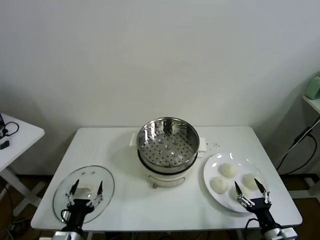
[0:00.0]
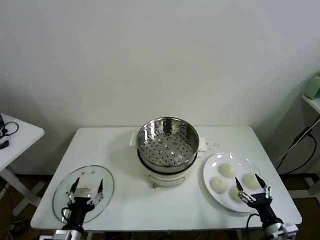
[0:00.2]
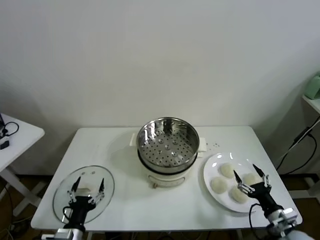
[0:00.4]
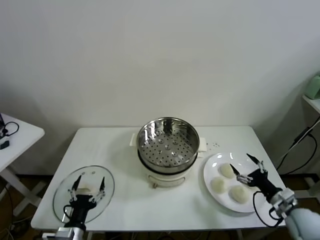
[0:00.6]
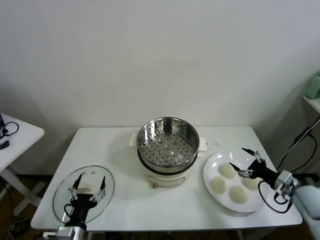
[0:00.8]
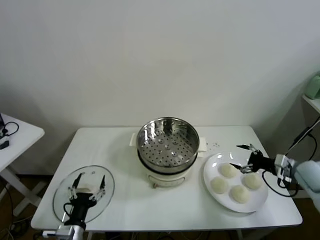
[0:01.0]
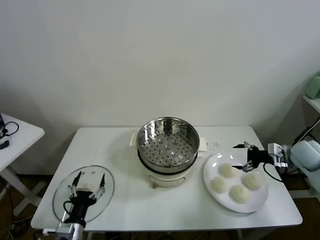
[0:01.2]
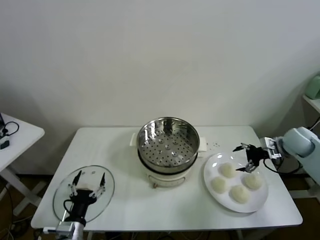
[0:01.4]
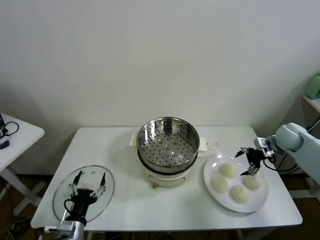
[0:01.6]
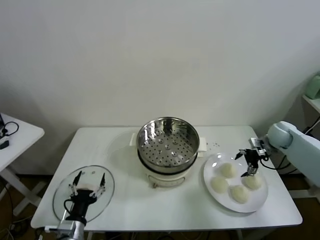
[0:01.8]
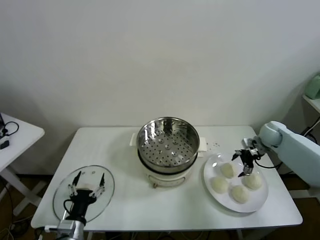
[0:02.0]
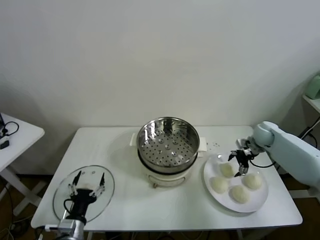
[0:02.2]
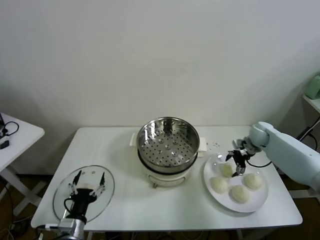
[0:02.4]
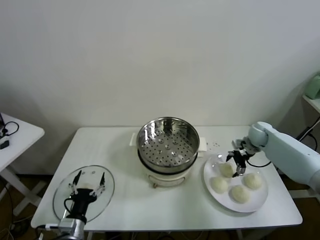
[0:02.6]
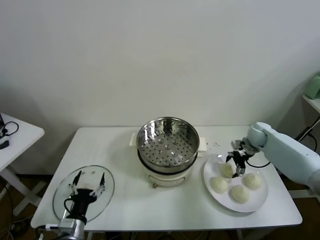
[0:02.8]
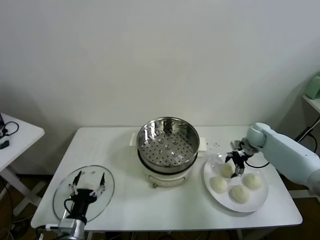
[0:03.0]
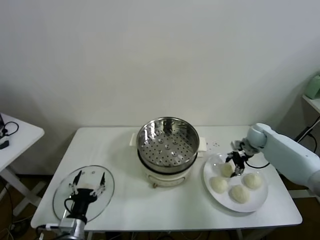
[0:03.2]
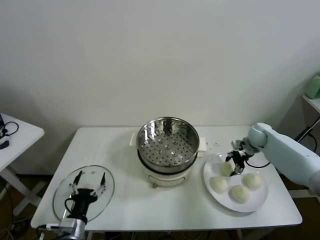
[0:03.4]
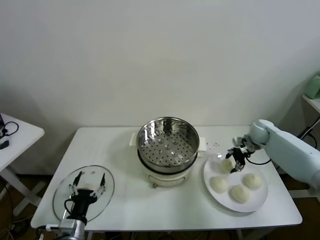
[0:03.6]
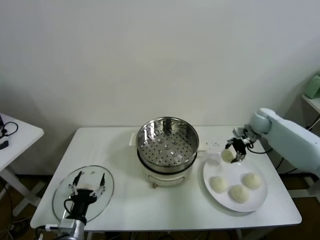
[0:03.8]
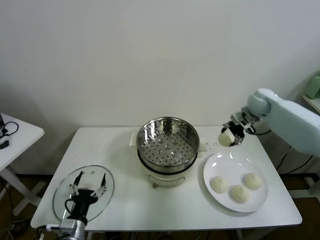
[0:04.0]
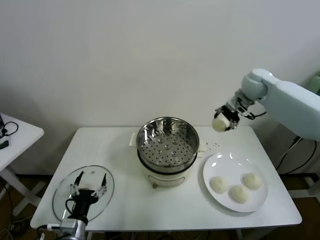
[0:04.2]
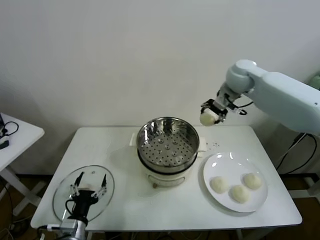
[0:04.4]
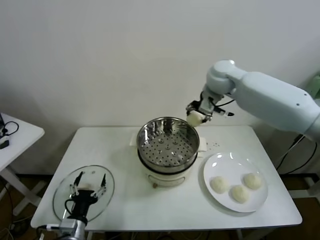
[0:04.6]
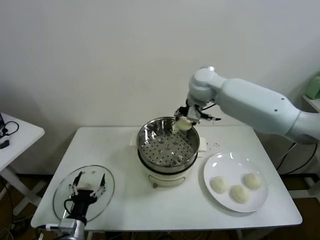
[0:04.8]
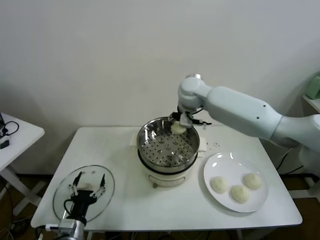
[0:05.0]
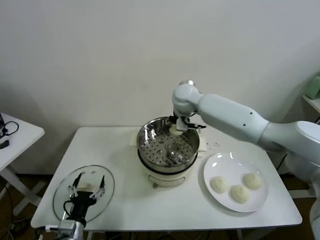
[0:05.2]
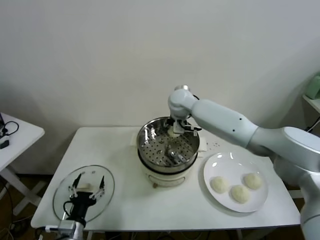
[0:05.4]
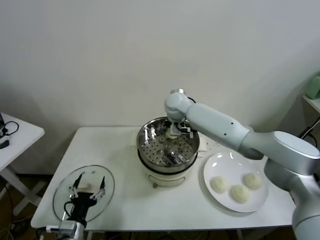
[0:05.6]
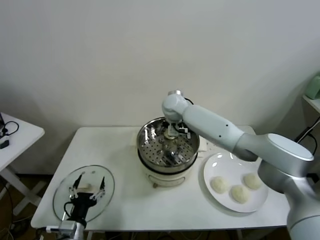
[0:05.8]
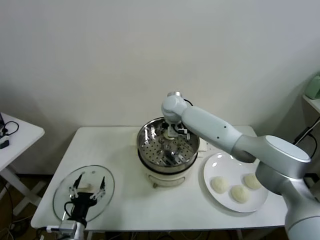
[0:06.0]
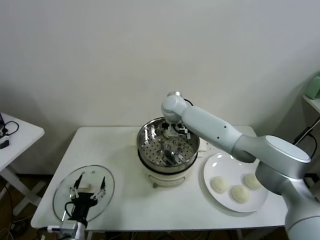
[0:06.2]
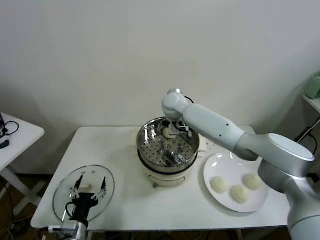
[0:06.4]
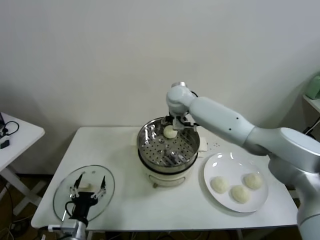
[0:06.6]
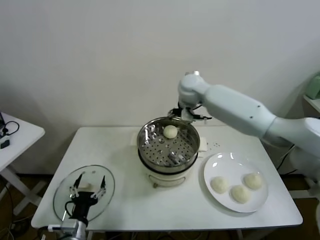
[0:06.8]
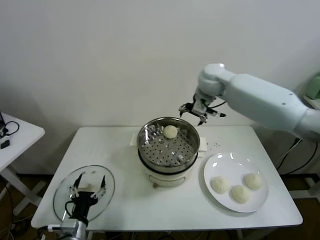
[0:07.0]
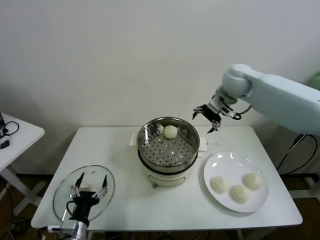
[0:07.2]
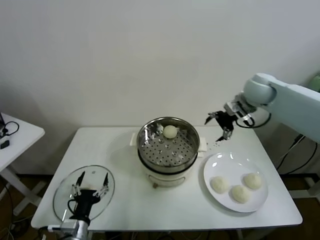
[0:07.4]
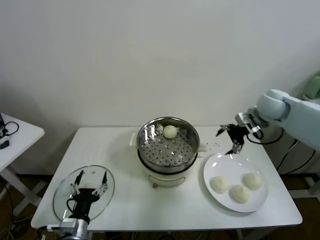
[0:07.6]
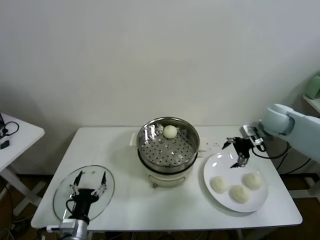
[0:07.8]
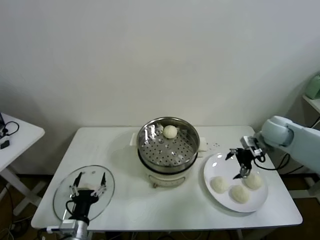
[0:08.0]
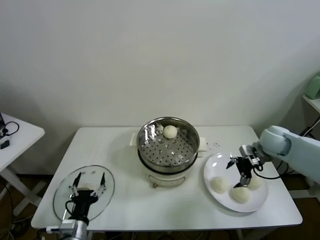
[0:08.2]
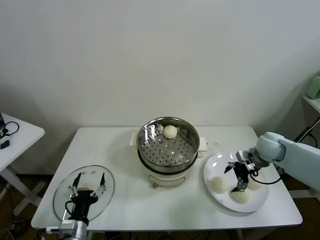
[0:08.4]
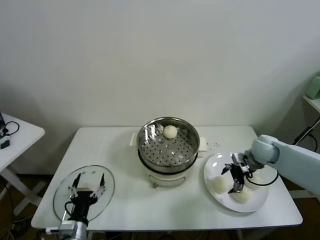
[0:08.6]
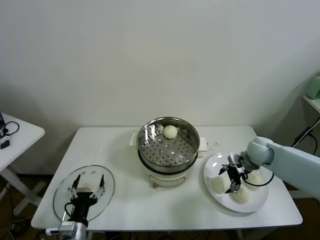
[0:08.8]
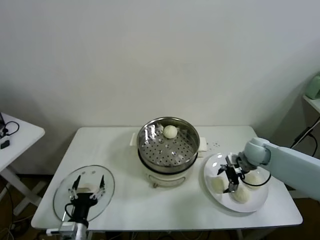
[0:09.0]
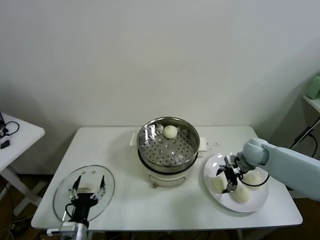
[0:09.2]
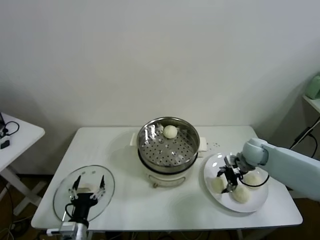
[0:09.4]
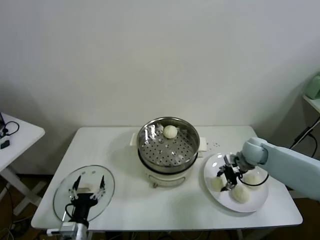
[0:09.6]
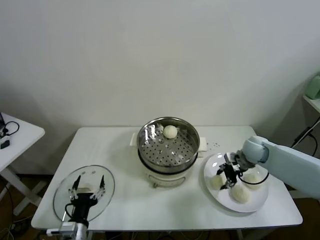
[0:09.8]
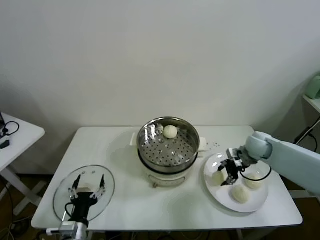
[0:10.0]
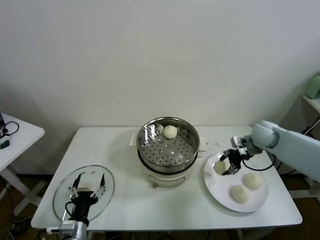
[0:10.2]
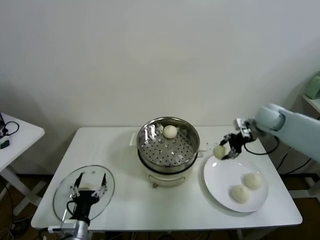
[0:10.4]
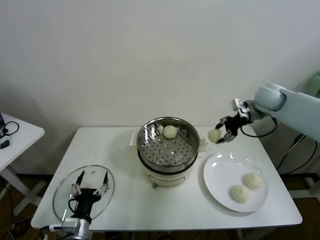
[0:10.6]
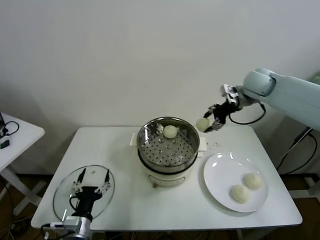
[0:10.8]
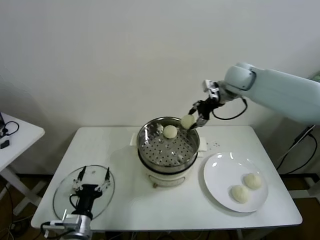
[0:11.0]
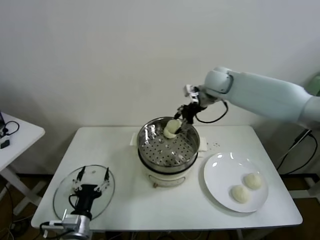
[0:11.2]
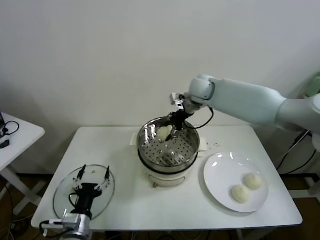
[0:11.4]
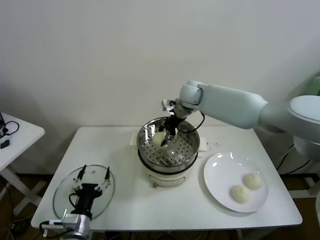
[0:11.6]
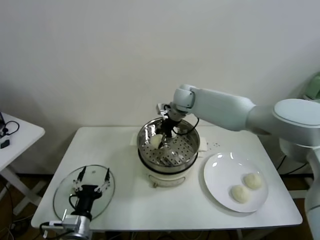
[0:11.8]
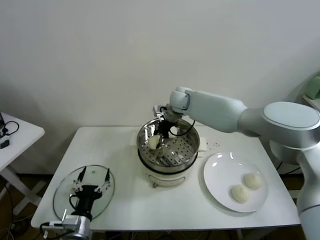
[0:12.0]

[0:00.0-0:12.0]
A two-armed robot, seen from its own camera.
Task of the whole recording: take steamed baozi put them in steamer.
Step, 0:00.0 to 0:03.2: Grasp the baozi in the plate with right gripper.
Step, 0:03.4 to 0:06.4: Place the baozi on the steamer with right gripper.
Step, 0:06.6 to 0:09.4: Grasp the baozi in the plate with right gripper.
0:01.6 to 0:03.0: The right gripper moves to the left, downward and forward, about 10 cm, and closes its fingers.
0:03.0 to 0:04.4: The right gripper moves upward and to the left, some 30 cm.
0:04.4 to 0:06.0: The right gripper goes roughly 25 cm to the left and downward, and opens its fingers.
0:06.0 to 0:07.6: The right gripper travels to the right by approximately 30 cm.
0:07.6 to 0:09.0: The right gripper travels downward by roughly 15 cm.
0:09.0 to 0:10.4: The right gripper travels upward by some 15 cm, and closes.
0:10.4 to 0:12.0: The right gripper heads to the left, covering some 30 cm.

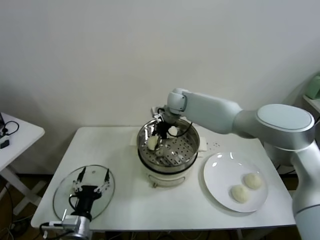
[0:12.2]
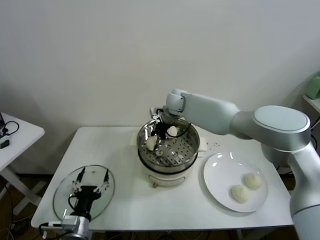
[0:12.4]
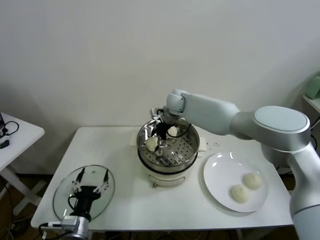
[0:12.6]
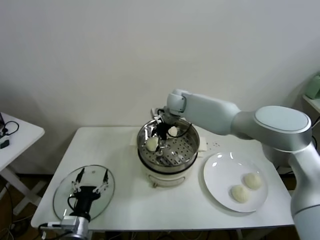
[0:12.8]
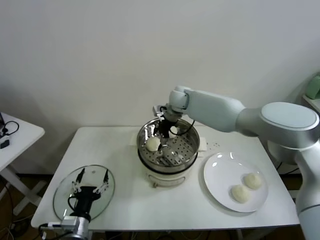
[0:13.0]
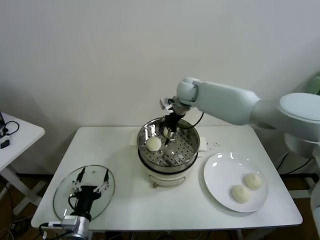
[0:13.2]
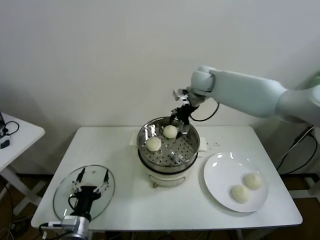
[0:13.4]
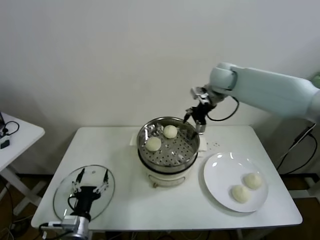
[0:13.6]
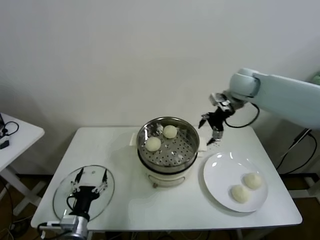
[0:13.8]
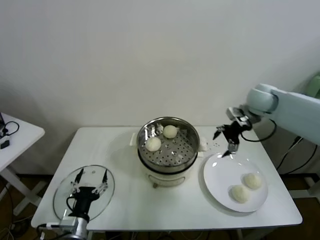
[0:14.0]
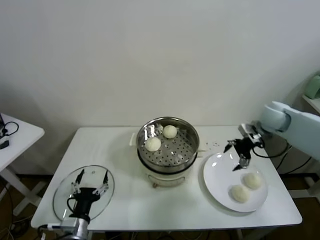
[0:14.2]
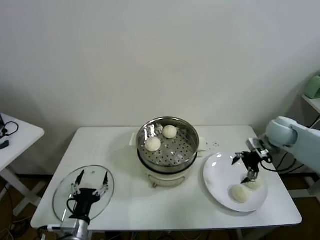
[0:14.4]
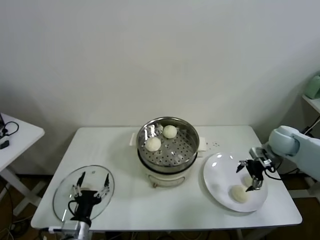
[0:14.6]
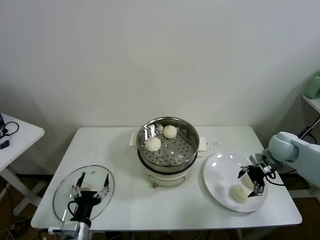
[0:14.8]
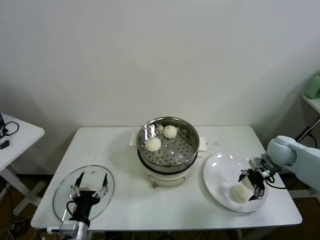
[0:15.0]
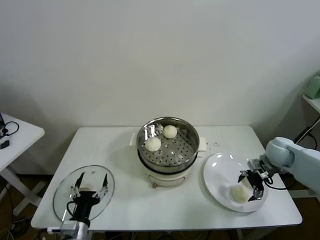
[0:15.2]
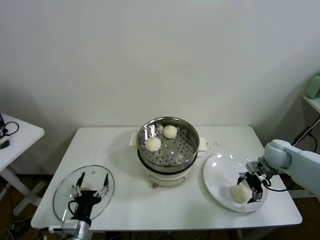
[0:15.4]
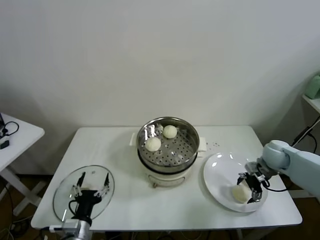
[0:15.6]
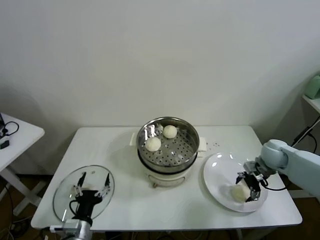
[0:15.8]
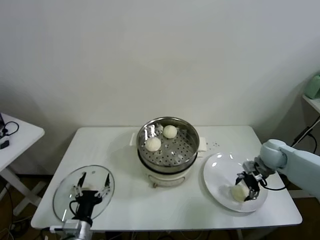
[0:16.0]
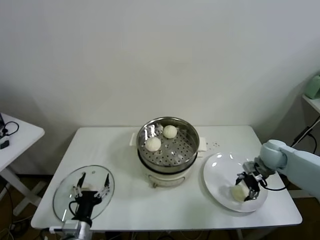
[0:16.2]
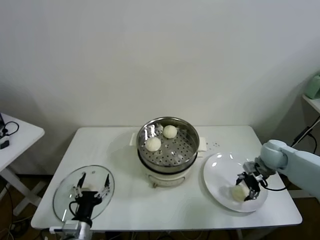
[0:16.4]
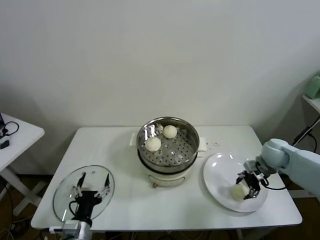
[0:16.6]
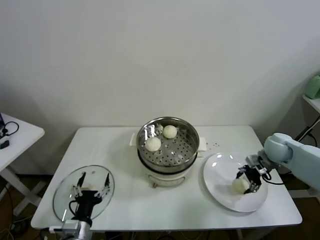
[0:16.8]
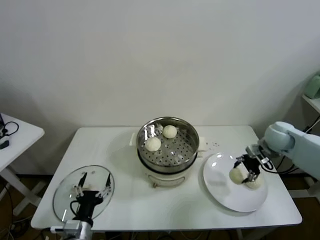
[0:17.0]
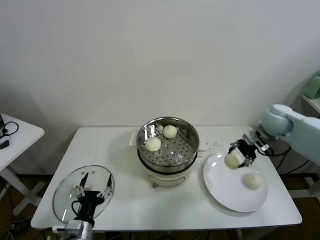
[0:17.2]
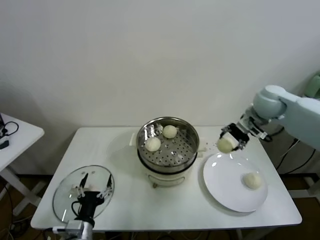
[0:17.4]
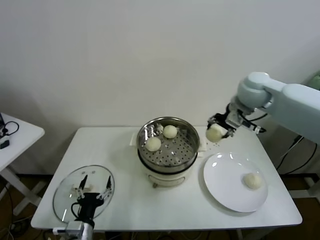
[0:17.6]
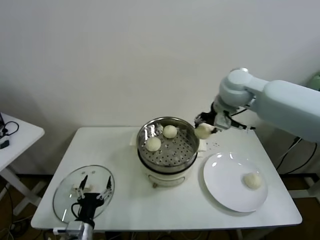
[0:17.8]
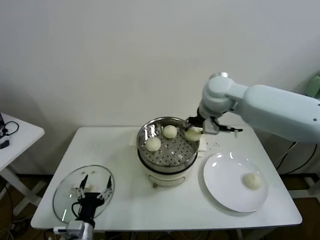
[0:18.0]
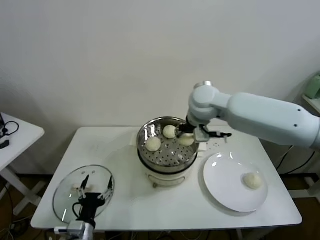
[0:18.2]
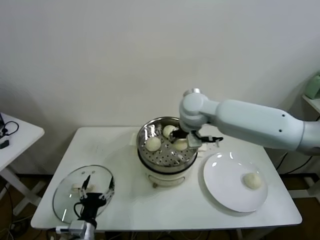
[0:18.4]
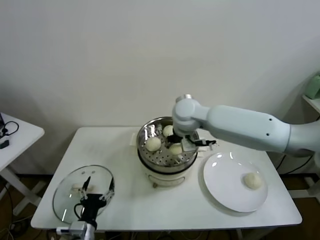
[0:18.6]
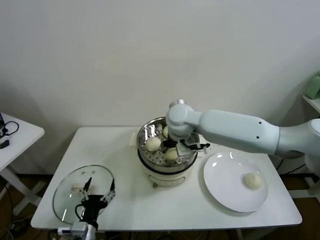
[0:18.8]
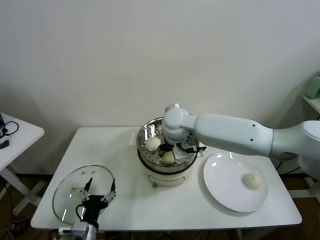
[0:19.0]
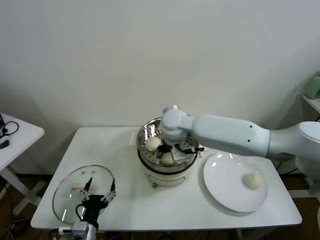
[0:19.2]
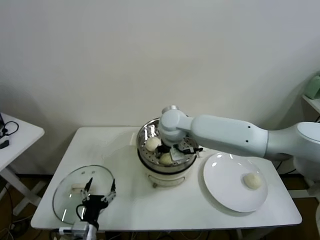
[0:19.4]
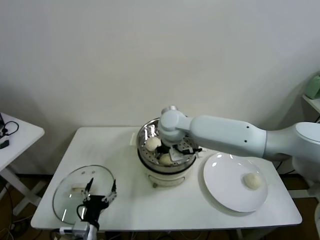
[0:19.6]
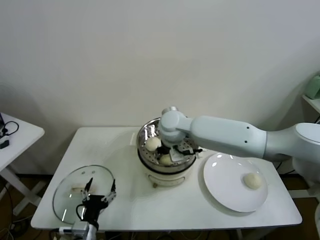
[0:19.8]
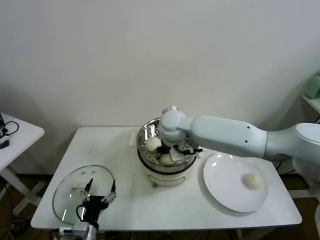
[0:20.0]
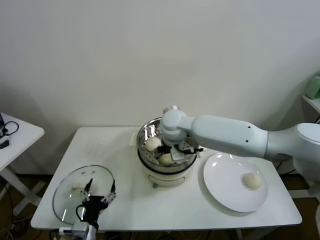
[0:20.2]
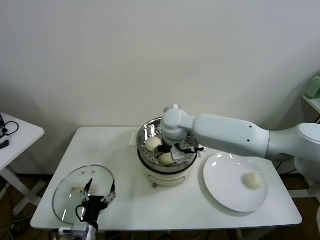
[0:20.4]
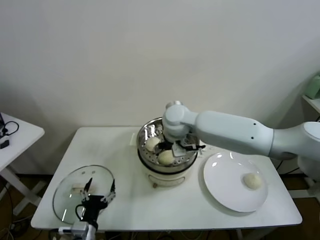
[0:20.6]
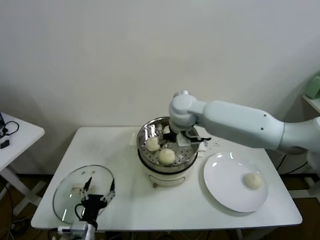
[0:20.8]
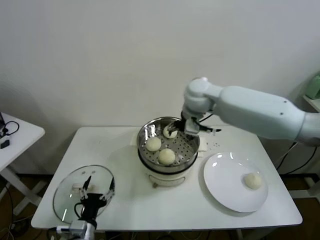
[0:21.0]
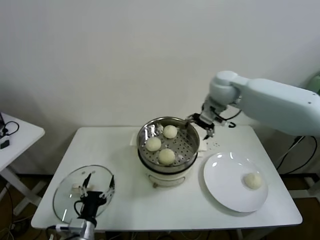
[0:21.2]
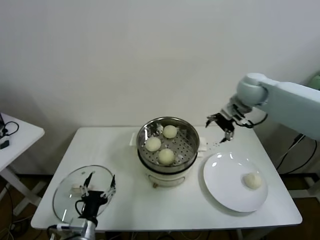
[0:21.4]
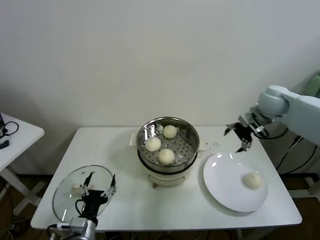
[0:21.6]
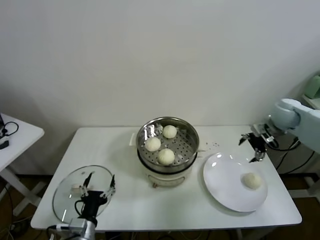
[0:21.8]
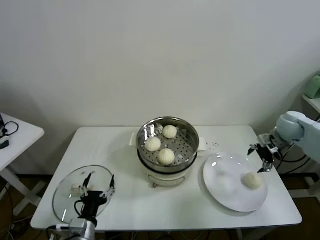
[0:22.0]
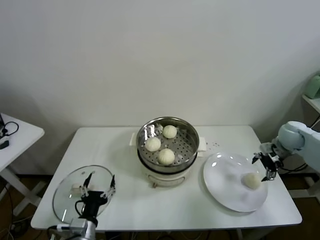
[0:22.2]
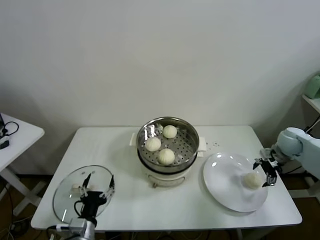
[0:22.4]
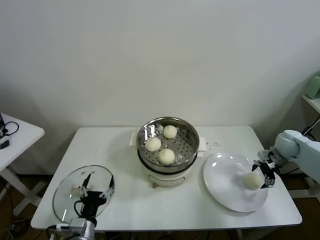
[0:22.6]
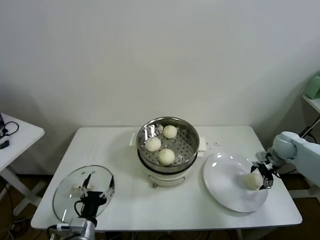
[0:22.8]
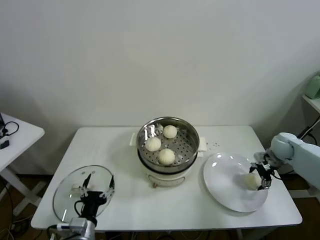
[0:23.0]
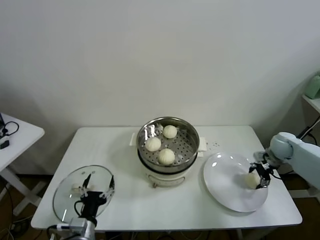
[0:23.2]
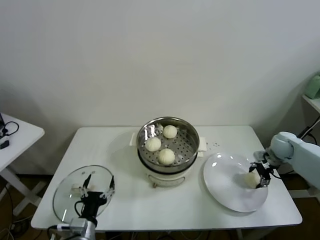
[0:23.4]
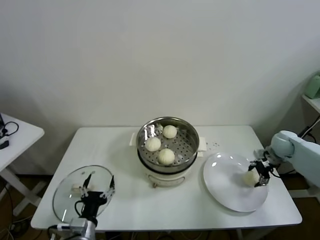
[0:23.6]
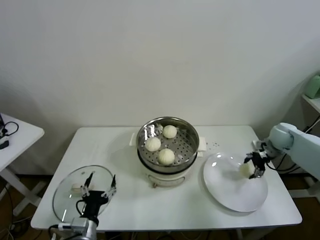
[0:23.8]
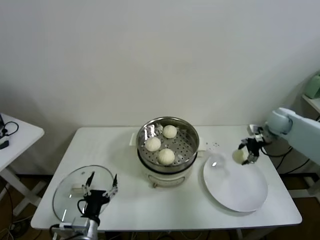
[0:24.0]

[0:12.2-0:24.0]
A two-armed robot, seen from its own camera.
Task of the whole recording: take steamed baozi put them in steamer.
Step, 0:13.0 to 0:16.2: Grasp the baozi in the plate with right gripper.
Step, 0:16.4 to 0:20.6: Place the baozi on the steamer with right gripper.
Step, 0:20.8 to 0:23.2: Grasp the baozi in the plate with right gripper.
0:12.2 to 0:13.6: The right gripper is displaced to the right and upward by about 20 cm, and opens up.
0:13.6 to 0:15.2: The right gripper travels downward, to the right and backward by about 35 cm.
0:15.2 to 0:16.6: The right gripper closes.
0:16.6 to 0:18.2: The right gripper moves to the left and upward, roughly 35 cm.
0:18.2 to 0:19.6: The right gripper heads to the left and downward, covering some 10 cm.
0:19.6 to 0:21.0: The right gripper travels upward and to the right by roughly 10 cm, and opens its fingers.
0:21.0 to 0:22.6: The right gripper is displaced to the right and downward by about 40 cm.
0:22.6 to 0:24.0: The right gripper travels upward and forward by roughly 10 cm, and closes.
